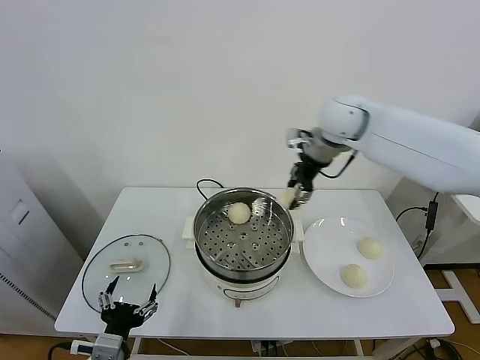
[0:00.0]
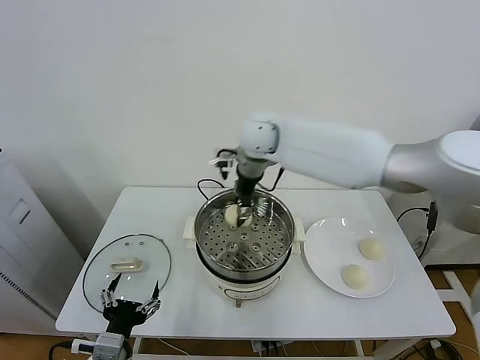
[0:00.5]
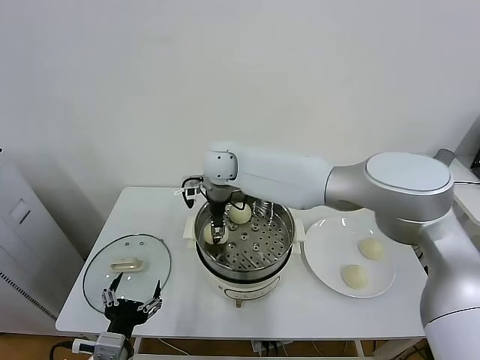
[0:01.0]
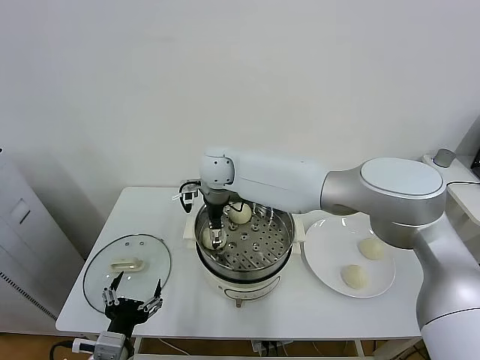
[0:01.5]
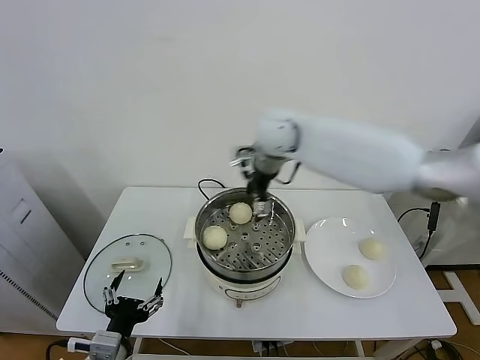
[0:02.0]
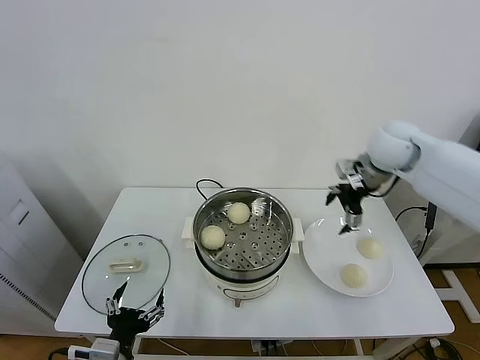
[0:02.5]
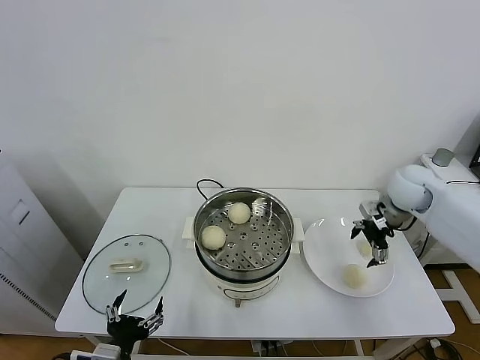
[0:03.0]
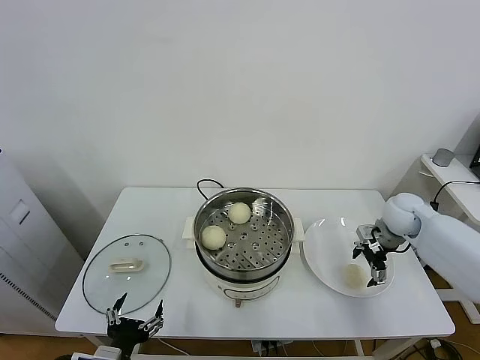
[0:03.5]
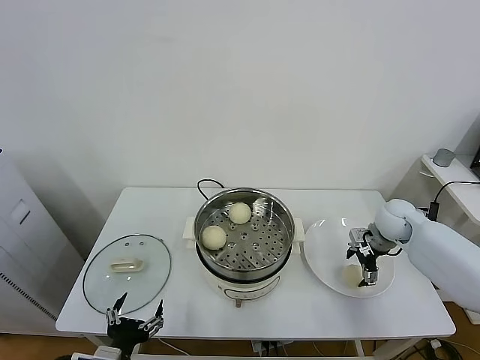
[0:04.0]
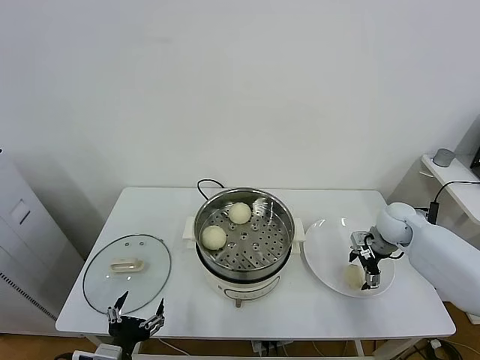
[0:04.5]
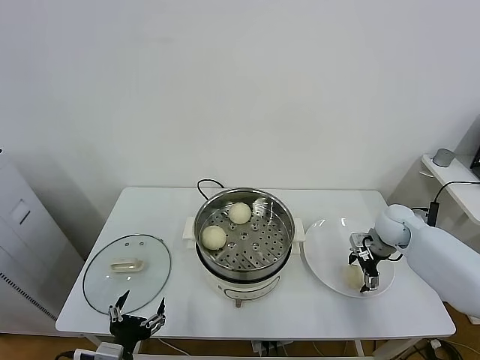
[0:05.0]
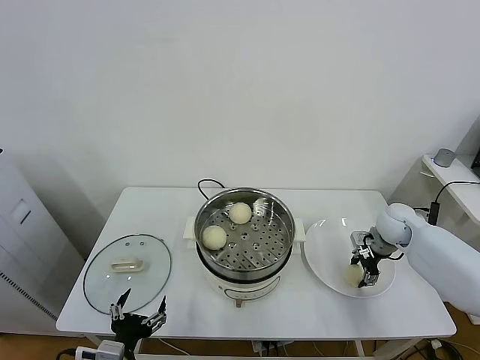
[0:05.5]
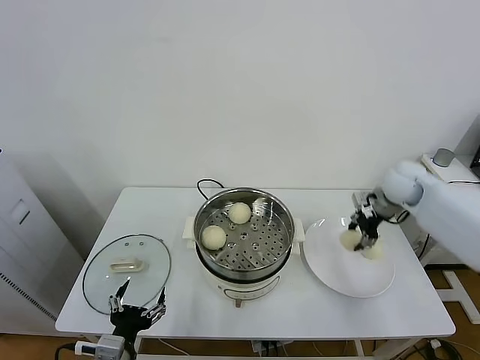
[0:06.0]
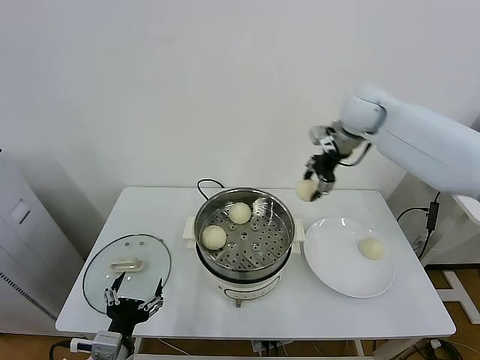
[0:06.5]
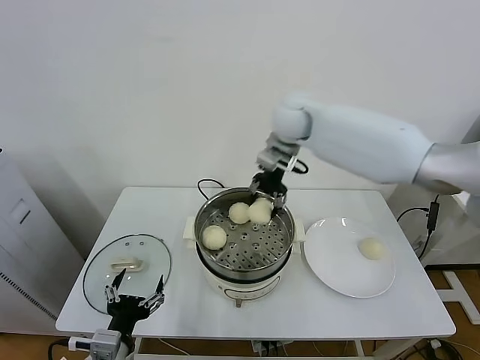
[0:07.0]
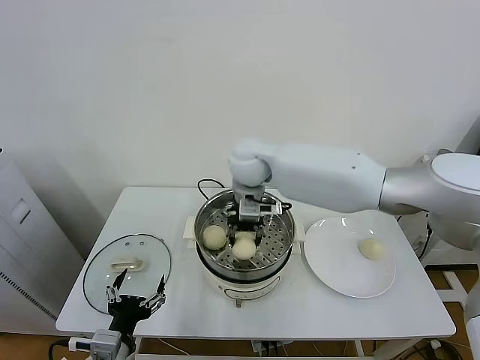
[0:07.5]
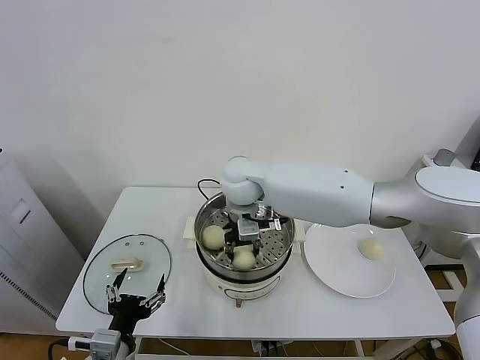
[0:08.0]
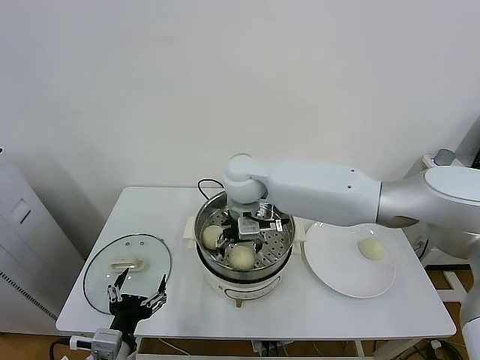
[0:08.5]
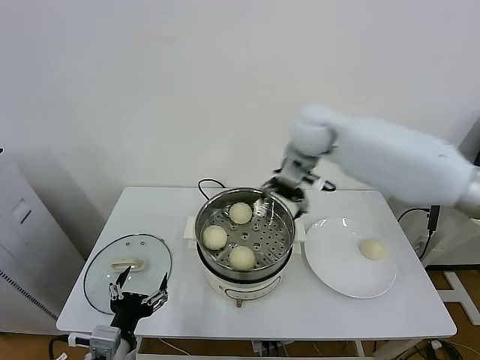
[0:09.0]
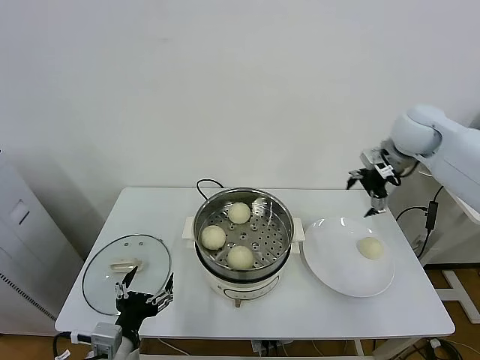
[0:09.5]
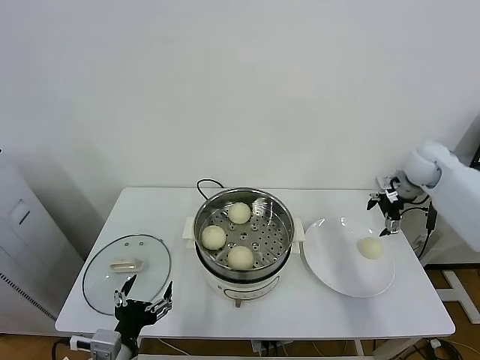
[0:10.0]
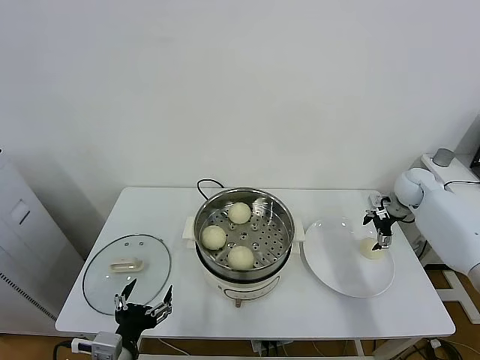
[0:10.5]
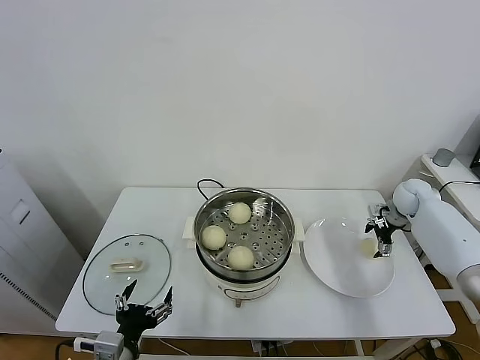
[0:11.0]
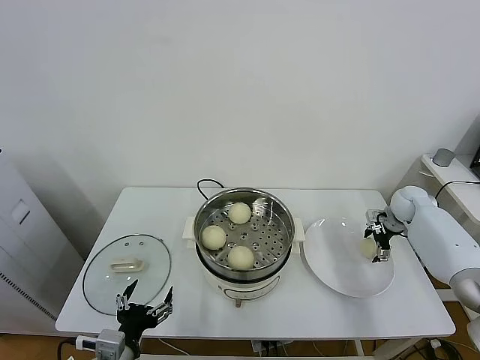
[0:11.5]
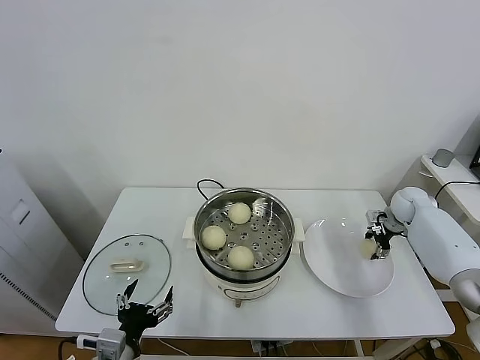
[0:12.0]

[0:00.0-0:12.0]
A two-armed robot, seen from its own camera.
Task of the whole recording: take steamed baozi put them in steamer.
Step, 0.0 to 1.5 s: Place the baozi on the steamer with right gripper.
Step, 2.0 to 5.5 s: Grasp the baozi in the plate with right gripper.
Step, 6.0 to 8.5 s: Place the baozi on the steamer with right gripper.
0.0 to 2.0 s: The right gripper goes to the left and returns, roughly 20 cm each way, and opens its fingers.
2.0 to 4.0 s: The right gripper shifts approximately 35 cm to the right and downward.
4.0 to 6.0 s: The right gripper is displaced upward by roughly 10 cm, and closes up.
6.0 to 8.0 s: The right gripper heads to the left, covering roughly 35 cm.
8.0 to 10.0 s: The right gripper moves to the right, about 40 cm, and opens its fingers.
10.0 to 12.0 s: The right gripper goes about 15 cm downward, and closes.

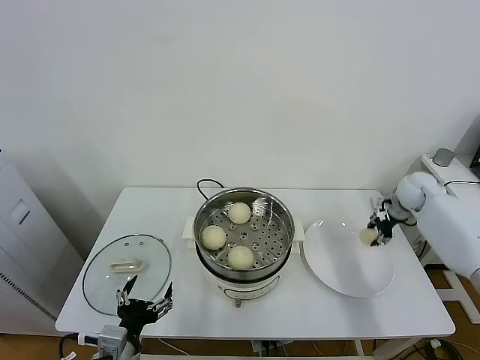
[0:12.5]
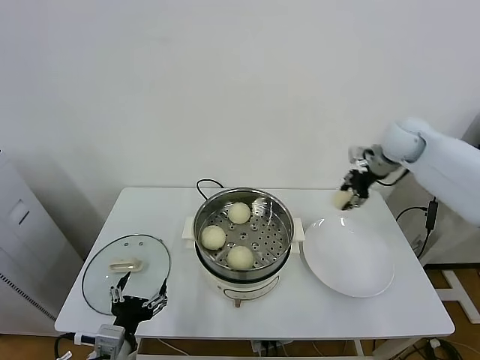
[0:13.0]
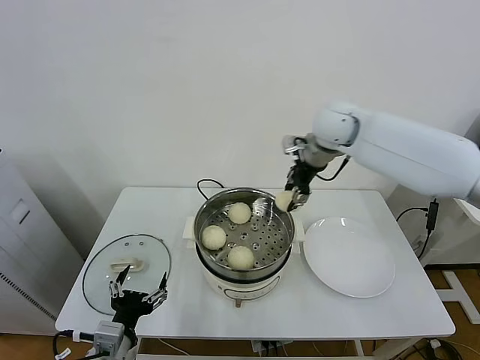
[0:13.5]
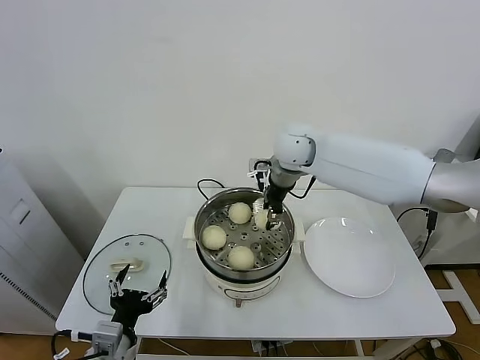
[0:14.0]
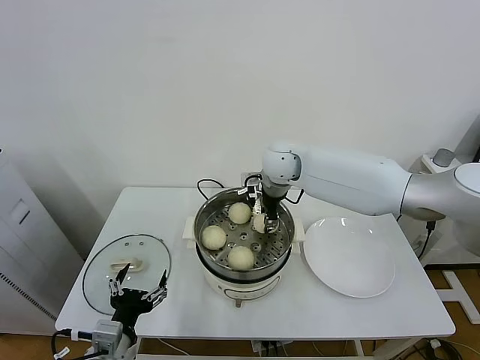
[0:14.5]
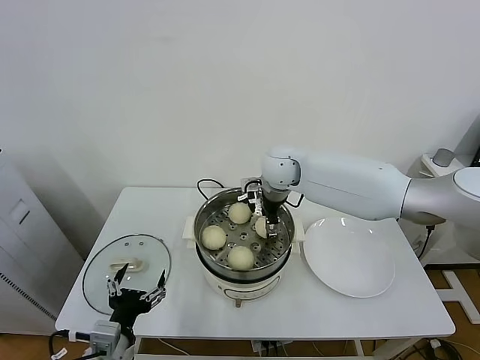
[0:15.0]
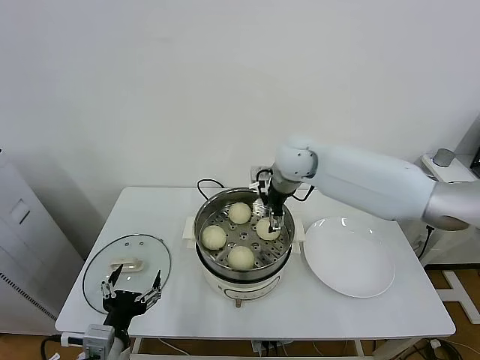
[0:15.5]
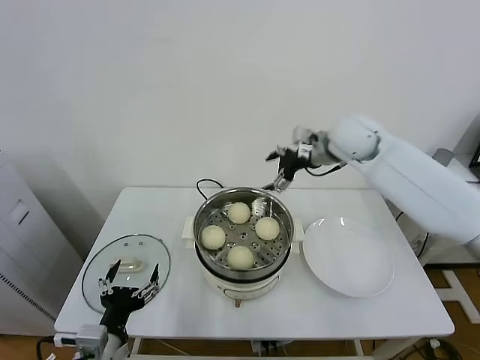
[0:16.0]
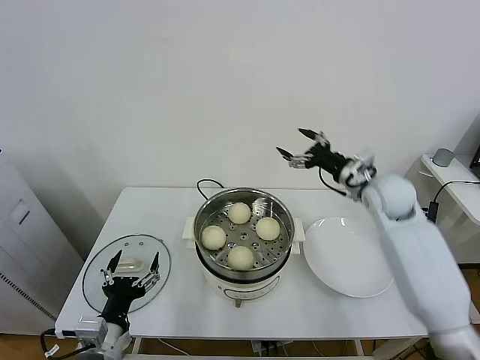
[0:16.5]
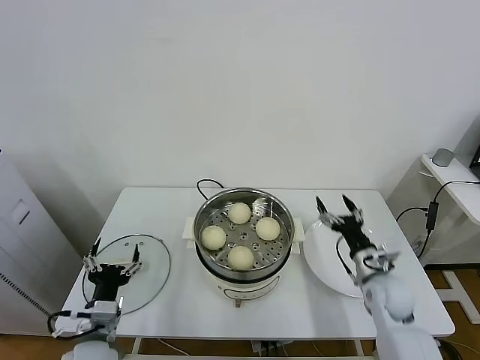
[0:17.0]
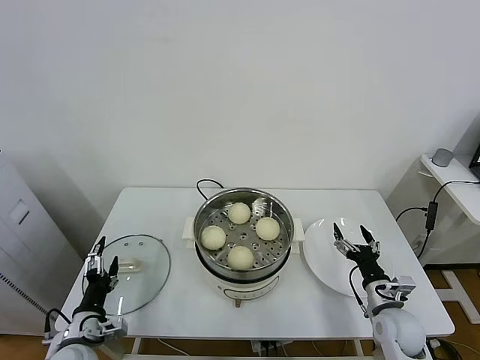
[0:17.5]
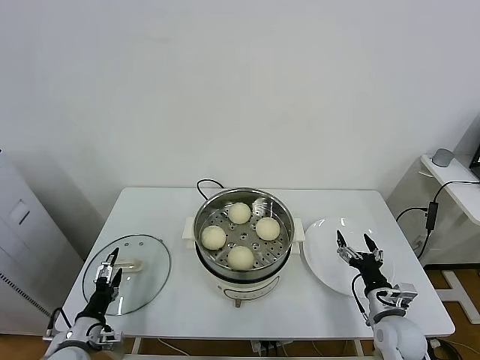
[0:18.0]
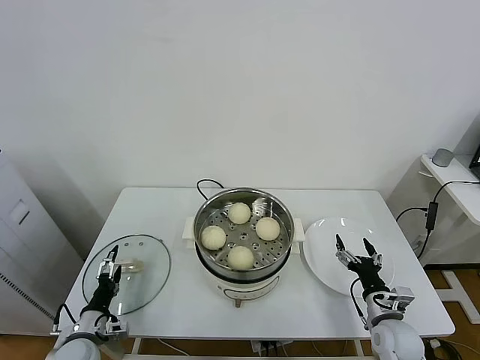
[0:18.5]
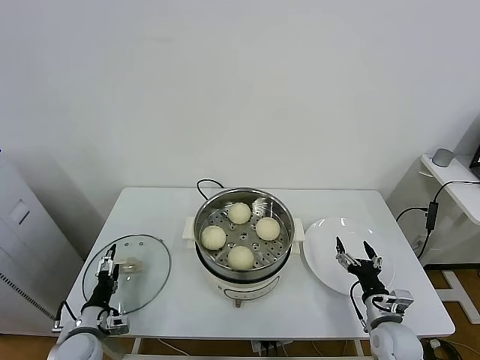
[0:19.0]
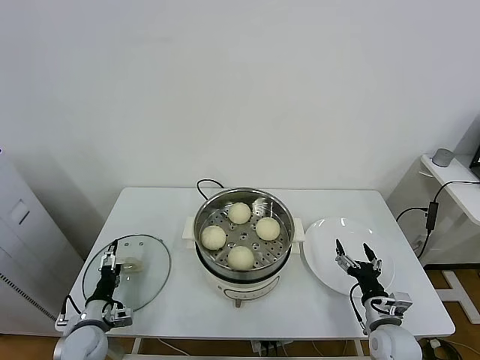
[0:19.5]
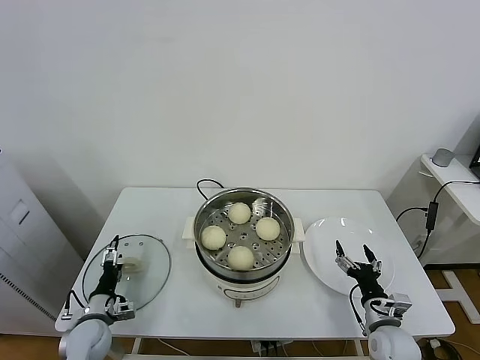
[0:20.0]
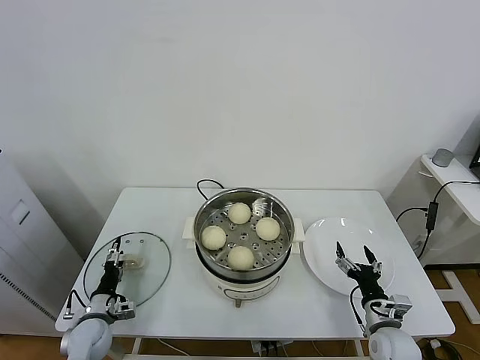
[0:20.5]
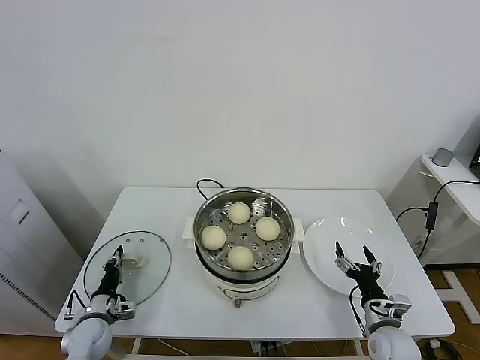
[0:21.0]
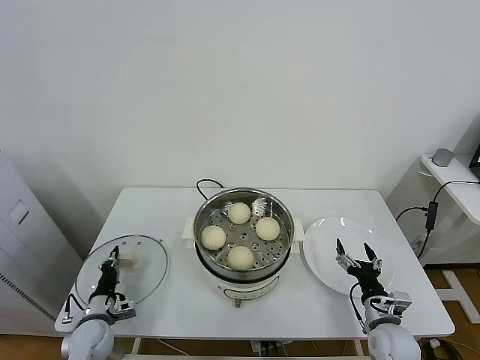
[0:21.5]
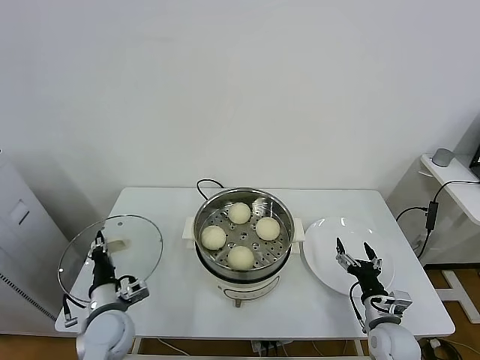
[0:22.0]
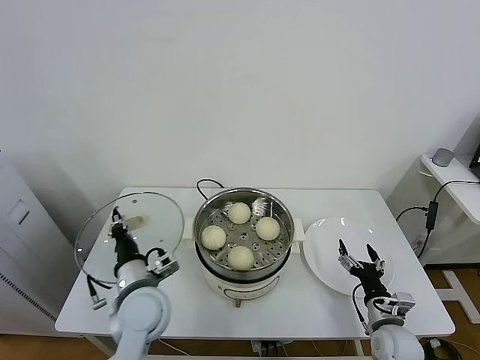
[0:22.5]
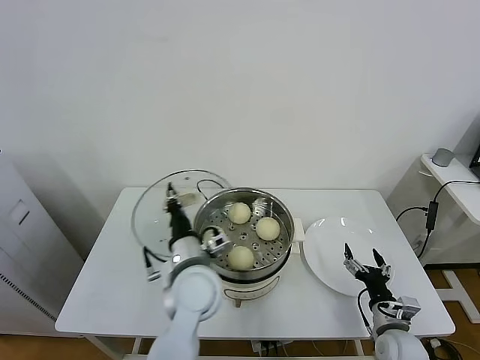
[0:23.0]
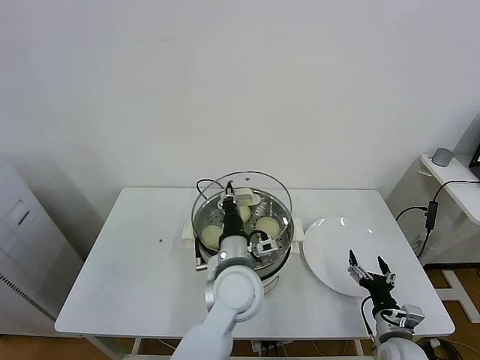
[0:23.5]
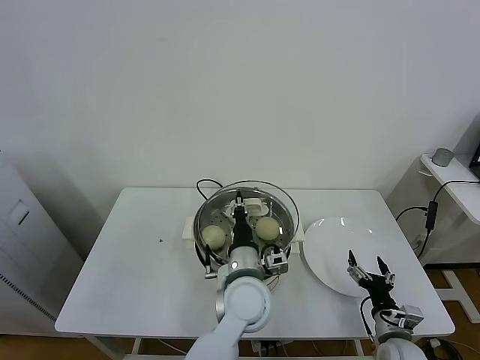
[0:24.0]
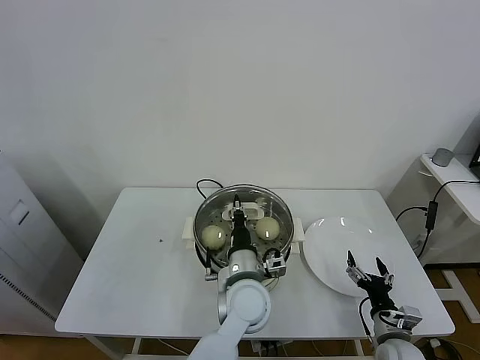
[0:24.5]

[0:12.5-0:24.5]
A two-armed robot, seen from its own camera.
Task of the whole recording: take steamed baozi put them in steamer.
Step, 12.5 to 15.0 s: Place the baozi on the steamer with right gripper.
Step, 15.5 to 21.0 s: Grasp the pot lid with left gripper.
12.5 to 14.5 s: The right gripper heads to the left, covering about 35 cm.
14.5 to 16.5 s: The right gripper goes some 25 cm to the right, and opens its fingers.
16.5 to 18.5 s: The left gripper heads downward, to the left and forward, covering about 15 cm; the right gripper heads downward and backward, covering some 30 cm.
18.5 to 20.5 s: The left gripper travels forward by roughly 5 cm.
20.5 to 22.5 s: The left gripper moves upward and to the right, some 25 cm, and closes.
22.5 to 24.5 s: The left gripper heads to the right, covering some 20 cm.

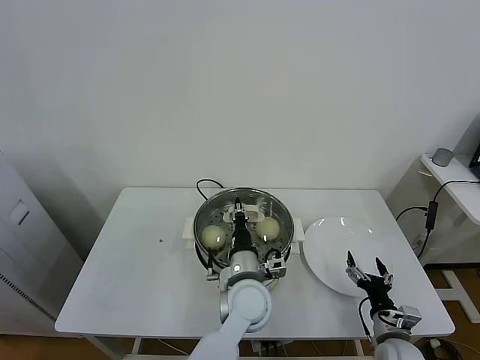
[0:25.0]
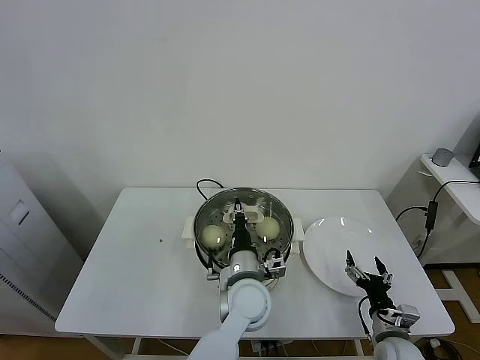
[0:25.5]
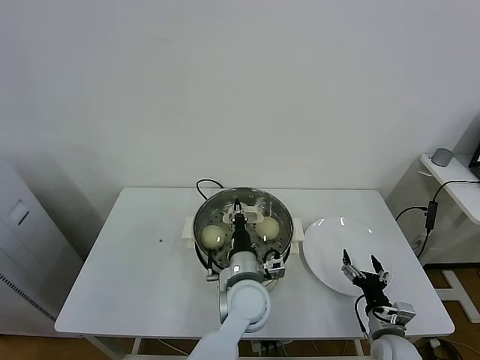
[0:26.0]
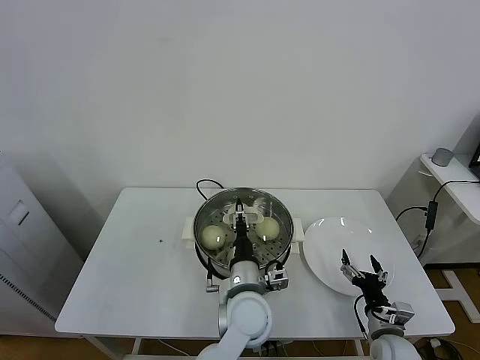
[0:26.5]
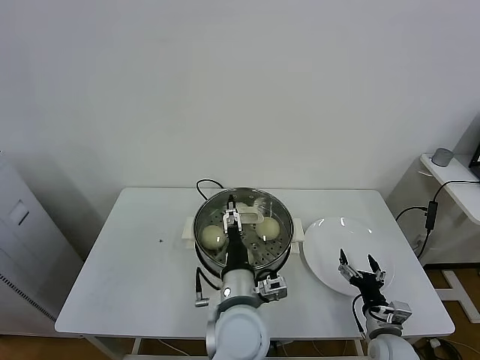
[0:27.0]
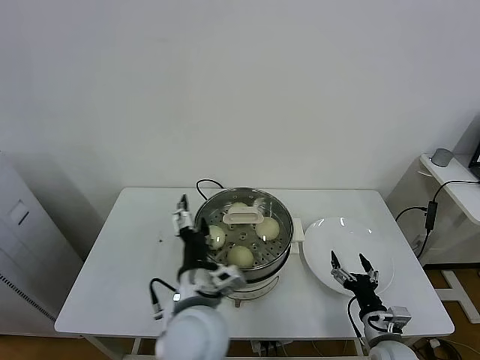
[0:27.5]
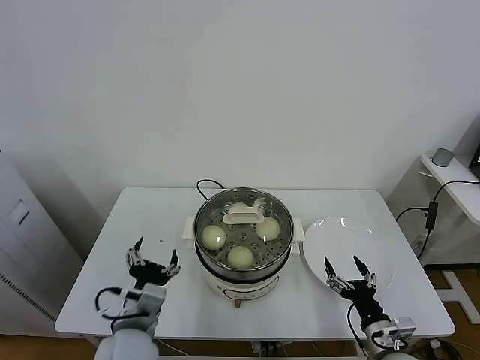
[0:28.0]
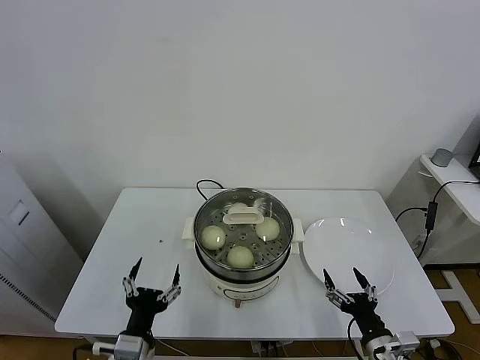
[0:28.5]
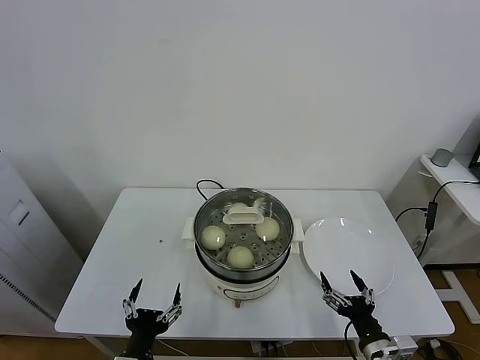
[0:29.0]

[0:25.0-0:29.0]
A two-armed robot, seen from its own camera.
Task of the whole recording: take steamed baozi put them in steamer.
25.0 to 27.0 s: The left gripper shifts about 5 cm backward, and opens.
27.0 to 29.0 s: The right gripper travels backward and upward by roughly 10 cm. The left gripper heads to the left and backward, covering about 25 cm.
